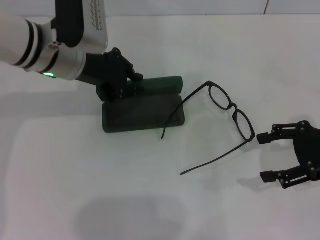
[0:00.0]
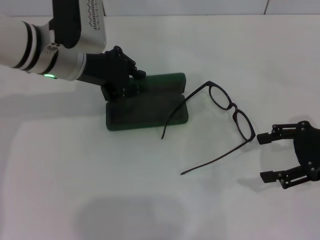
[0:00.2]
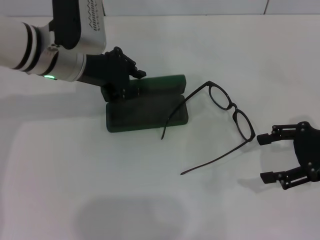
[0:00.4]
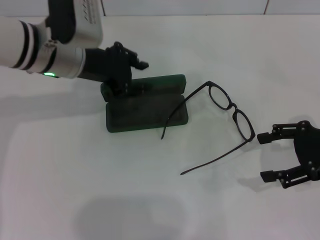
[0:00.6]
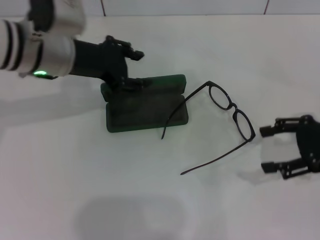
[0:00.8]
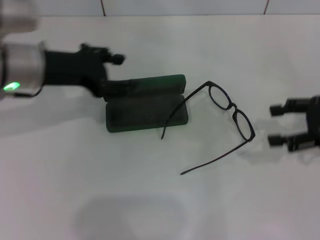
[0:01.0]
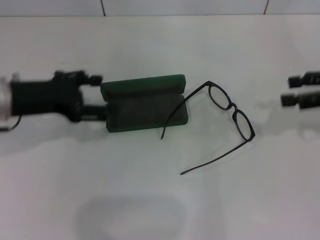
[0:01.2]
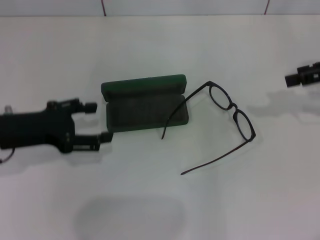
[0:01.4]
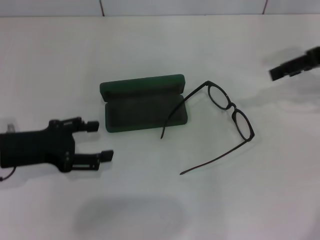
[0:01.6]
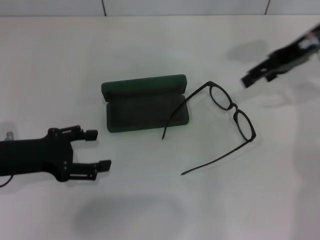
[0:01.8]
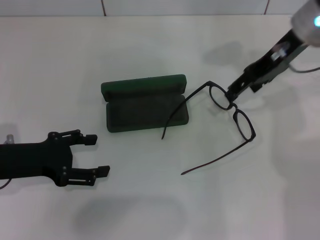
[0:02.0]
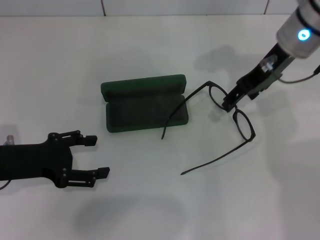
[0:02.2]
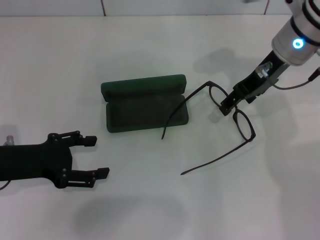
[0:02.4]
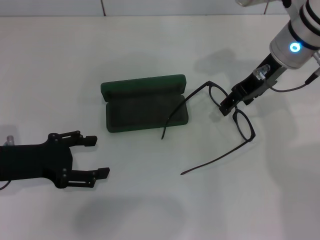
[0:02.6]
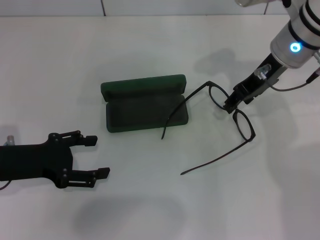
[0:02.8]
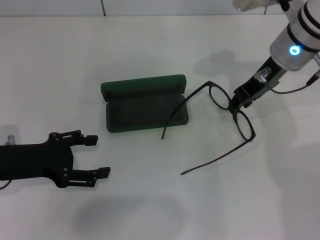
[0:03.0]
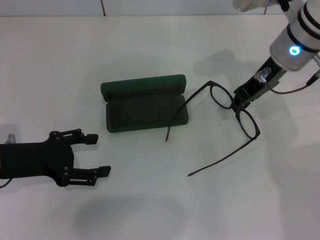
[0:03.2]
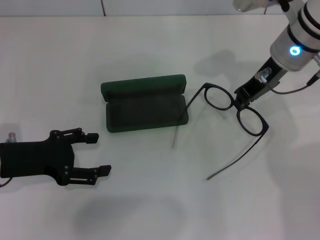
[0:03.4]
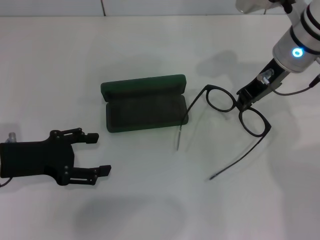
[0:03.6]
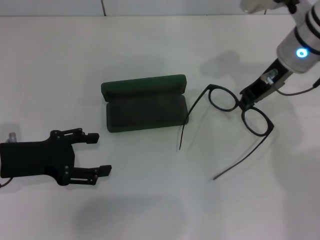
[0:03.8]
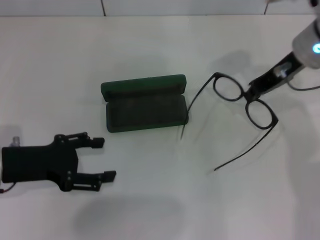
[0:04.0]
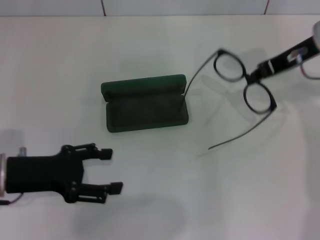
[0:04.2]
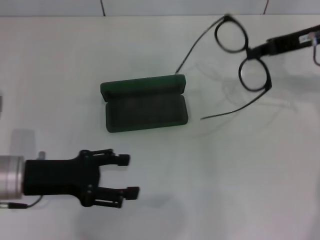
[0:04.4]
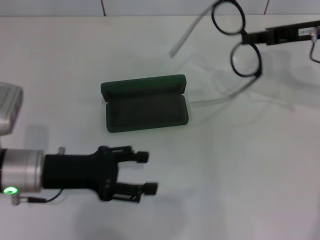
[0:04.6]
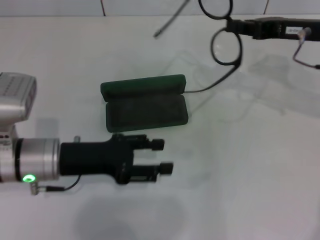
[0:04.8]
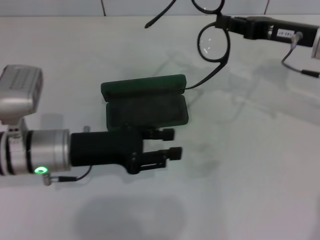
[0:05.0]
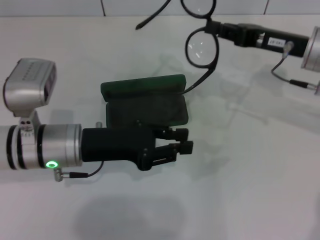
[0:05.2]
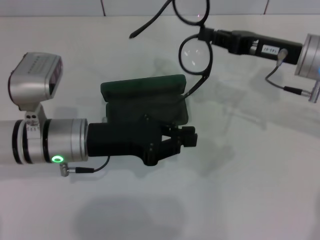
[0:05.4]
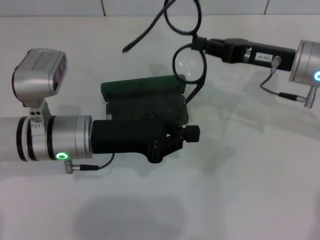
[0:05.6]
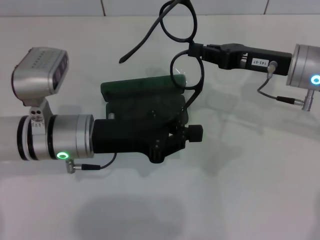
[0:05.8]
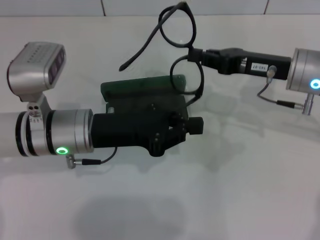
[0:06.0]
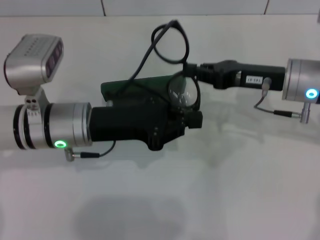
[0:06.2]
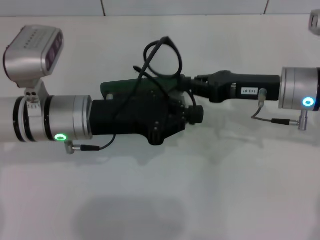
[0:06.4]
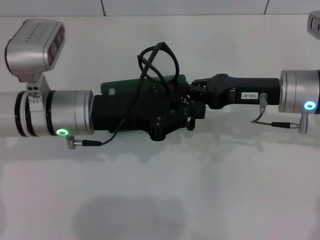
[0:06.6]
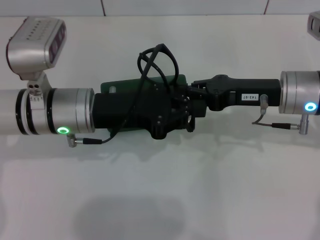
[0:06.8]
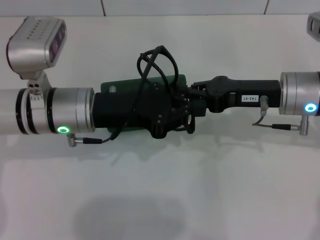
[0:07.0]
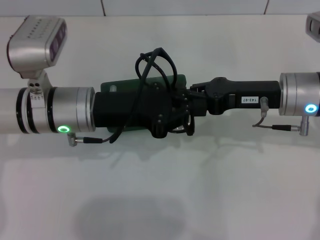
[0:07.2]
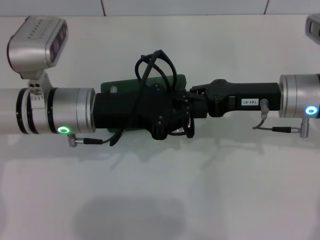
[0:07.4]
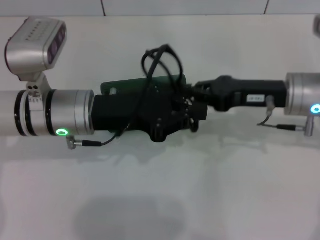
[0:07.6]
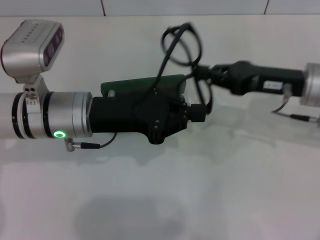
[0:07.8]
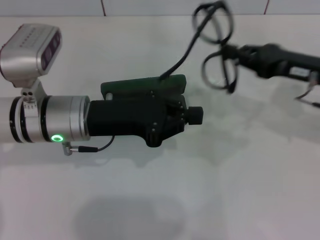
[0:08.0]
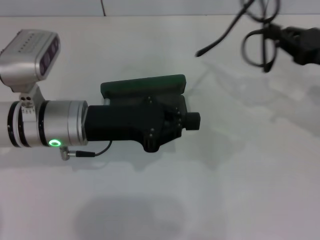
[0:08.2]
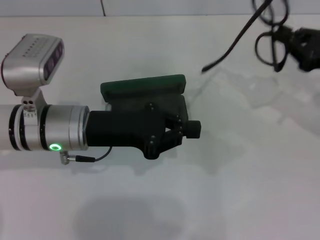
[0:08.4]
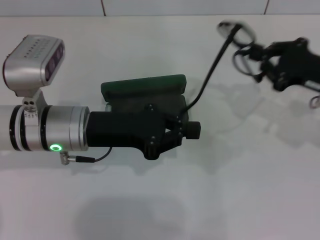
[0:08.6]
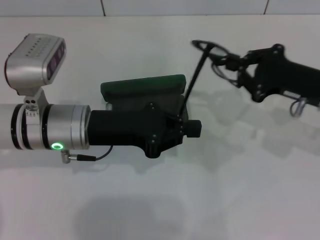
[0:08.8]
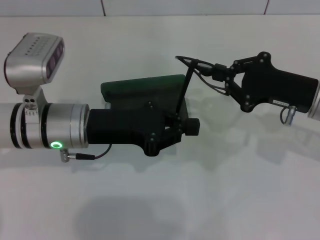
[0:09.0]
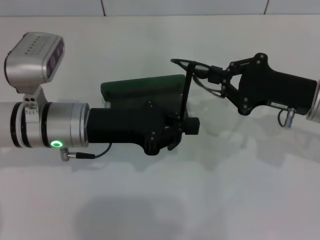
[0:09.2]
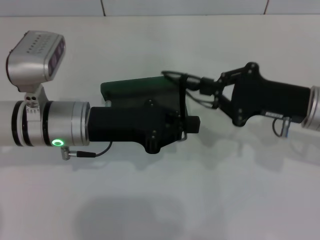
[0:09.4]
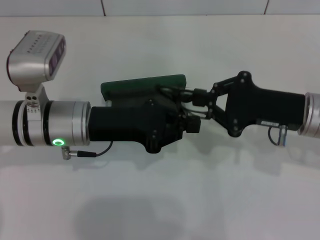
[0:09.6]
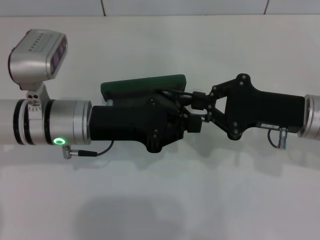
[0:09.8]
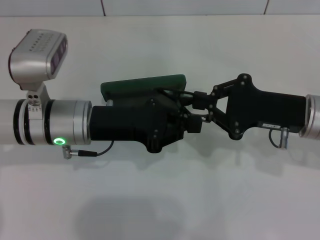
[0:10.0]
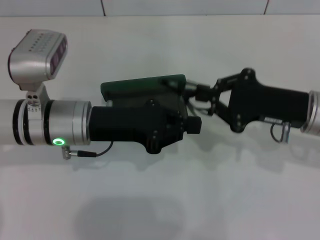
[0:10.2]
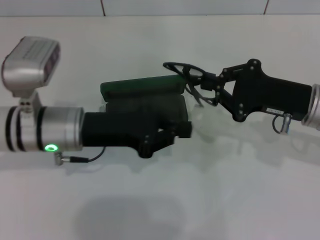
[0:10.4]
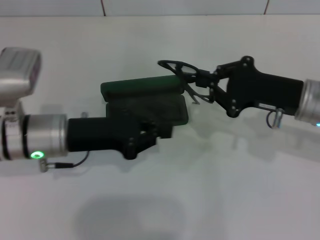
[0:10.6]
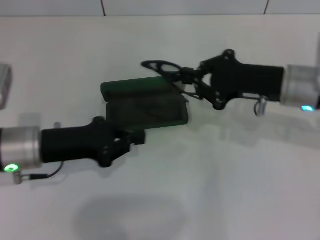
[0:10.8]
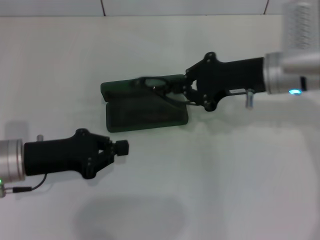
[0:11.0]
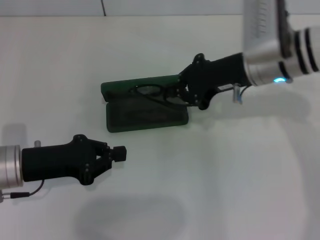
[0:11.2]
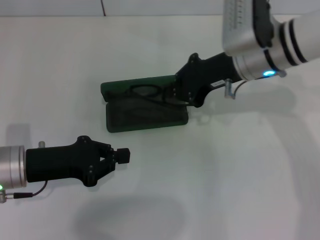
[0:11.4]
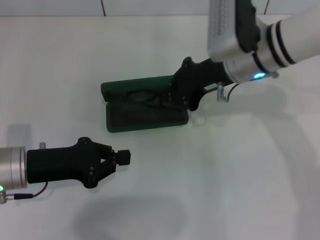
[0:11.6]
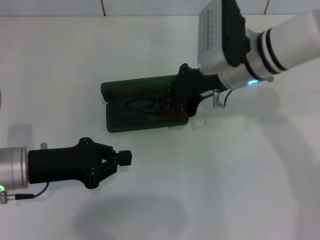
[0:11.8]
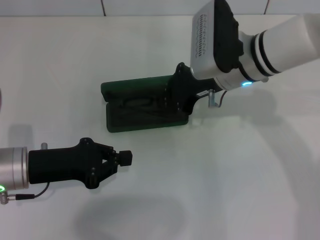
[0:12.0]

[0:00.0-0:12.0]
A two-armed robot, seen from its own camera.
Step, 0:00.6 to 0:03.6: Grab the eyeglass frame with your right hand.
Step, 0:03.8 to 0:09.8: Fold the frame with your left hand.
0:00.0 to 0:01.6: The right gripper shifts approximately 15 cm upward and forward, while the left gripper moves backward, to the left and downward, roughly 20 cm, and opens its fingers.
0:01.6 to 0:03.0: The right gripper is displaced to the left by approximately 15 cm.
0:03.0 to 0:04.4: The right gripper shifts roughly 10 cm to the right, and closes up.
0:04.4 to 0:06.0: The right gripper is displaced downward by some 5 cm. The left gripper is displaced to the right and forward by about 10 cm, and closes.
0:09.0 to 0:10.4: The grippers make only small movements.
0:10.4 to 0:12.0: The right gripper travels to the left and forward by roughly 15 cm. Meanwhile the left gripper travels to the left by approximately 10 cm.

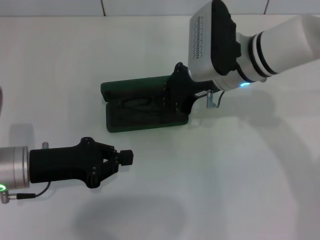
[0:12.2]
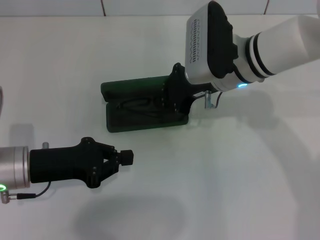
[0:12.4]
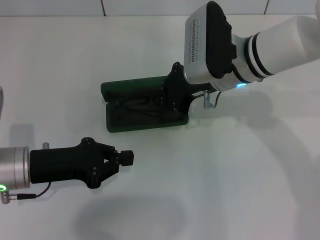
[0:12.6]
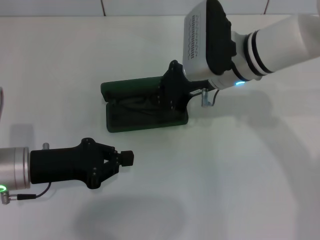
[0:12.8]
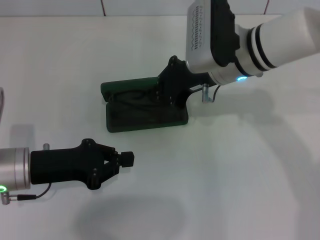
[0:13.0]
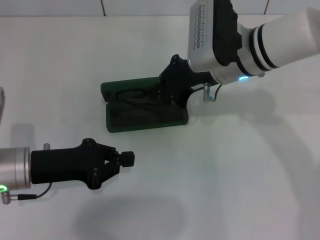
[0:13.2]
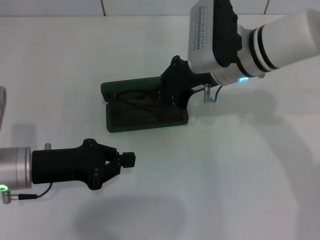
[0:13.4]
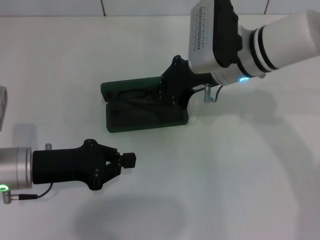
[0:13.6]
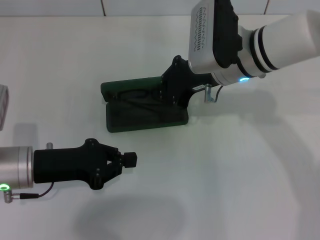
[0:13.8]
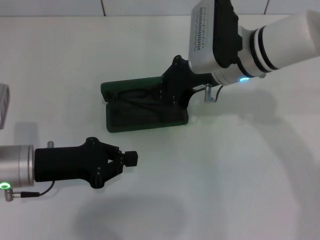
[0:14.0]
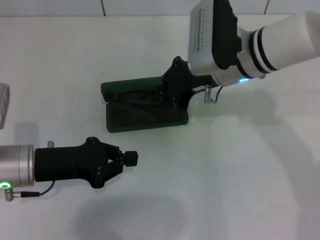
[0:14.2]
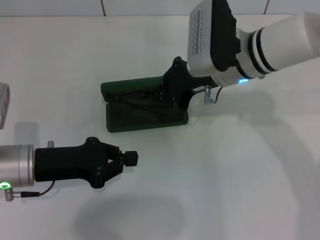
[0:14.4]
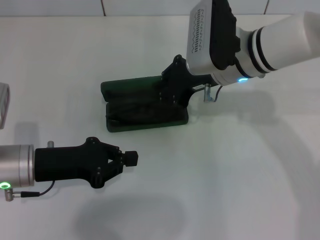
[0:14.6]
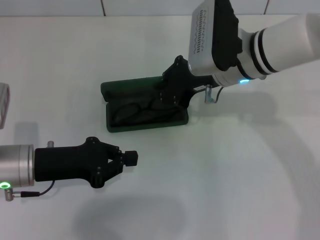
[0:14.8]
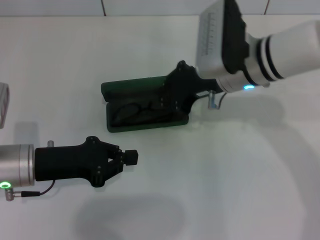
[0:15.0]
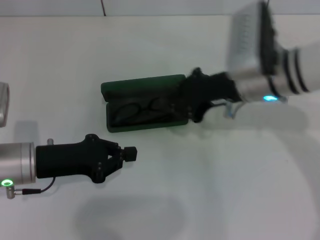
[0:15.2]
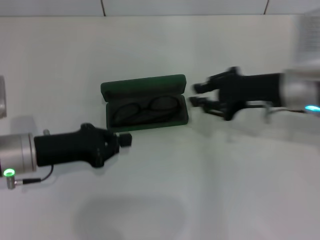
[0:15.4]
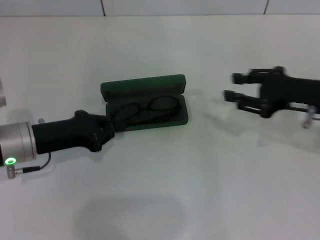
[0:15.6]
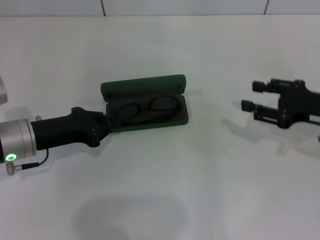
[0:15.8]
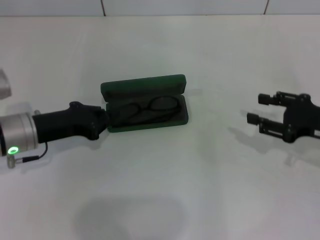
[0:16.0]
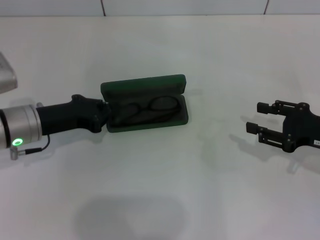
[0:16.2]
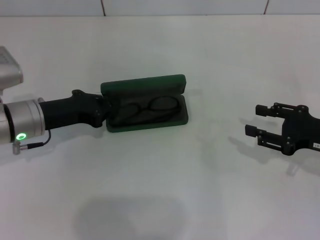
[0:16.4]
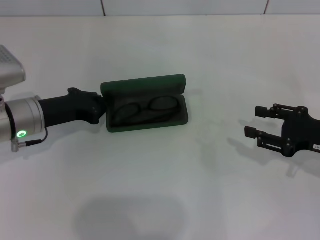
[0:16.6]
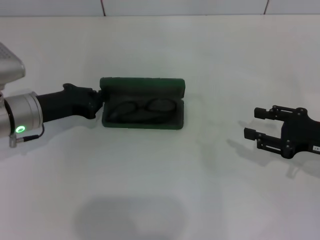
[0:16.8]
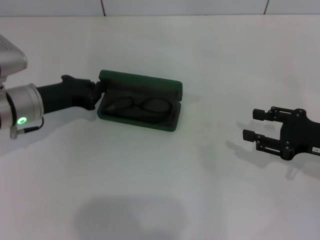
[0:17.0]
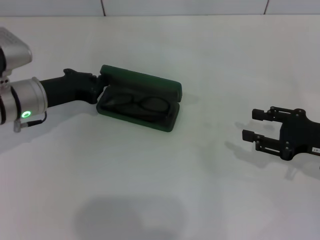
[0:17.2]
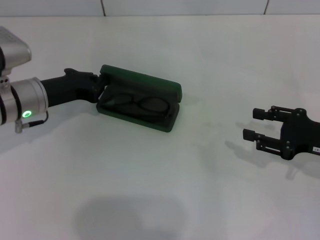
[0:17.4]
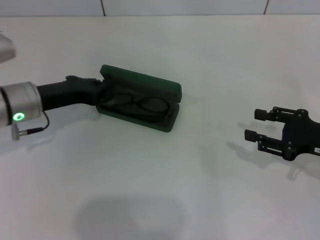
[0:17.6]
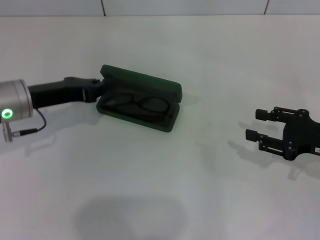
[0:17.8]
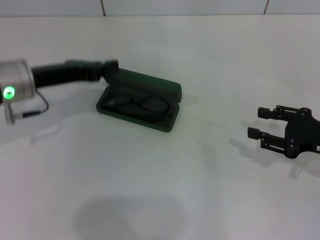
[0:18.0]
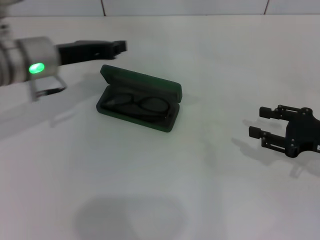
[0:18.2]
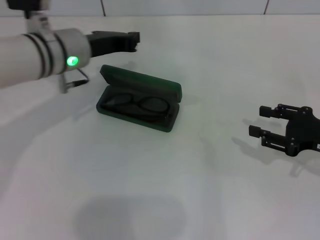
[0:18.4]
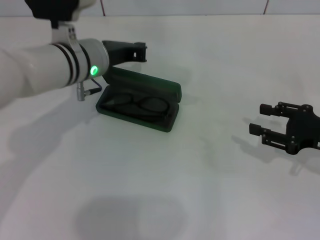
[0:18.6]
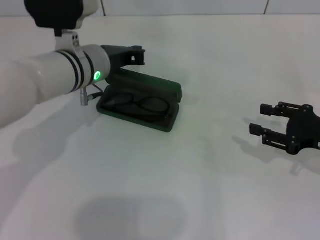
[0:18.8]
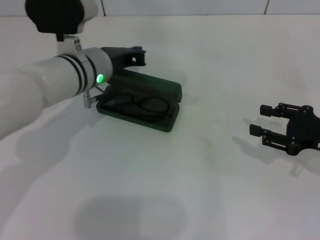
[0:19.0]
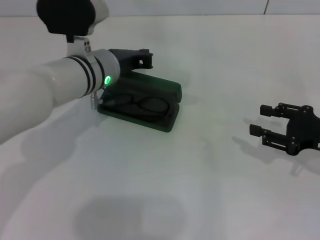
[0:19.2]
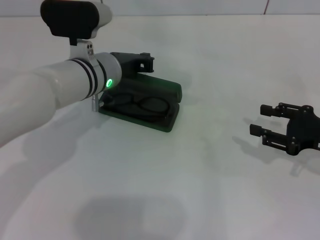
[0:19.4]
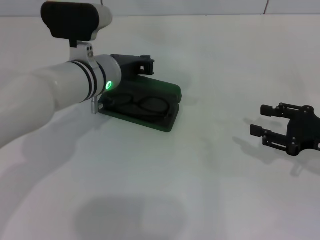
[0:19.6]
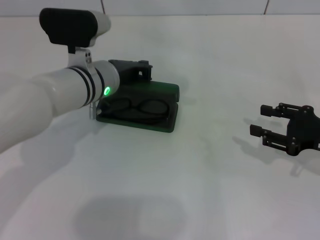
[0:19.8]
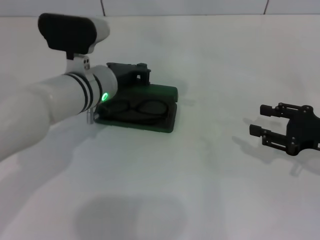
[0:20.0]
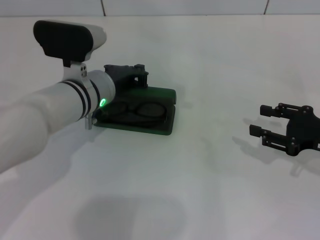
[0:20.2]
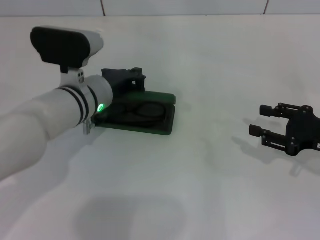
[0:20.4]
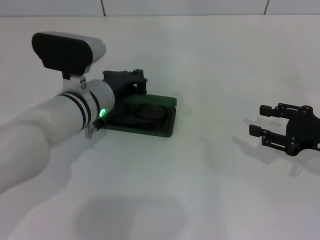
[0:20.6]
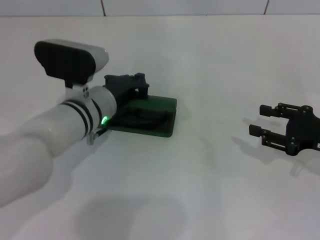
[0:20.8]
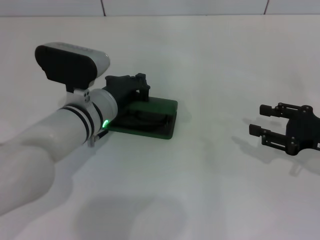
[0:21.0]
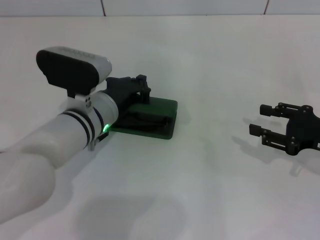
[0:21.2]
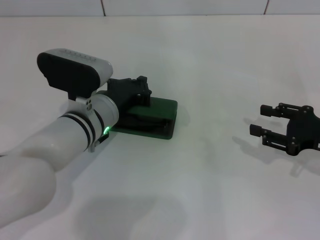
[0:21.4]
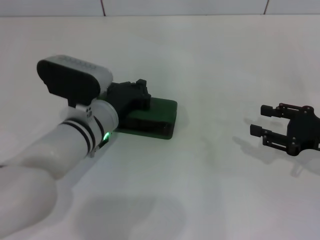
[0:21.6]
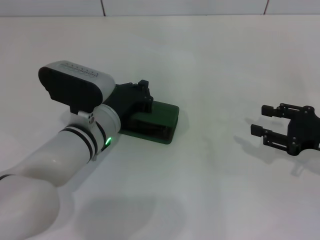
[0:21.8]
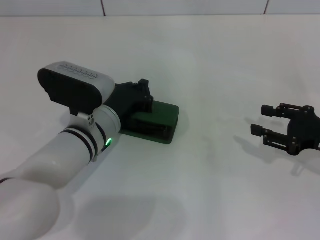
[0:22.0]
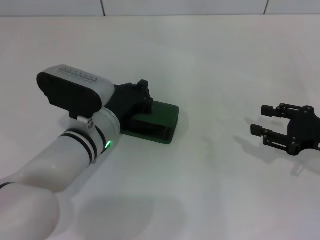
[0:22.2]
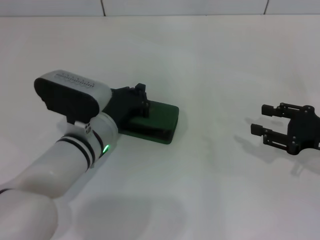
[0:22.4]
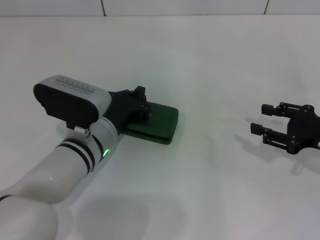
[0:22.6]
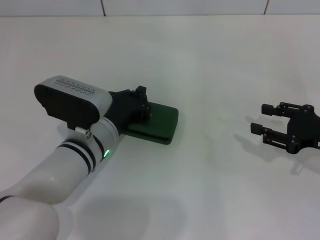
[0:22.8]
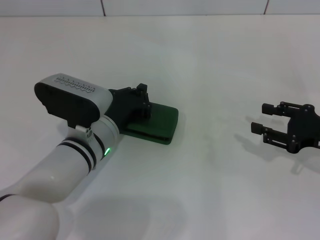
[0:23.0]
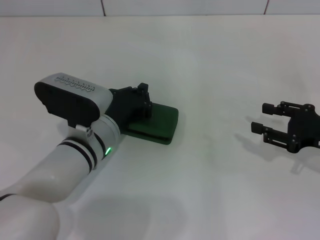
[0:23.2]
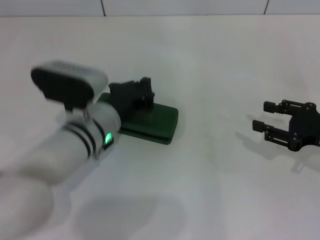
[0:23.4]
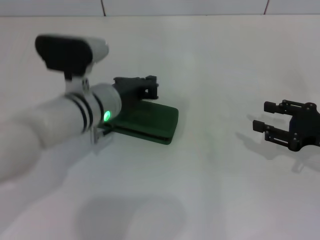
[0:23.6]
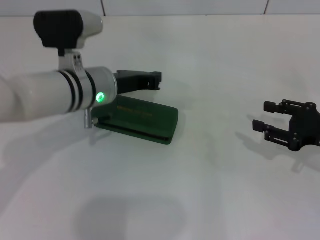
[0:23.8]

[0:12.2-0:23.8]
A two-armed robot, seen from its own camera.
Step, 0:12.2 to 0:14.8: Put the glasses into the case with your right hand.
Step, 0:15.0 to 0:22.8: Close the glasses case with your left hand.
0:12.2 to 0:13.6: Neither gripper changes place.
0:13.6 to 0:15.0: Both grippers stay put.
0:15.0 to 0:16.6: The left gripper goes some 5 cm forward; the right gripper shifts roughly 25 cm to the right, backward and downward, and opens.
0:16.6 to 0:18.0: The left gripper goes about 5 cm upward.
0:18.0 to 0:19.4: The left gripper shifts about 10 cm to the right.
0:19.4 to 0:21.0: The left gripper travels backward by roughly 5 cm.
0:21.0 to 0:22.4: There are only small adjustments of the grippers.
0:22.4 to 0:23.8: The left gripper shifts approximately 10 cm upward and forward.
